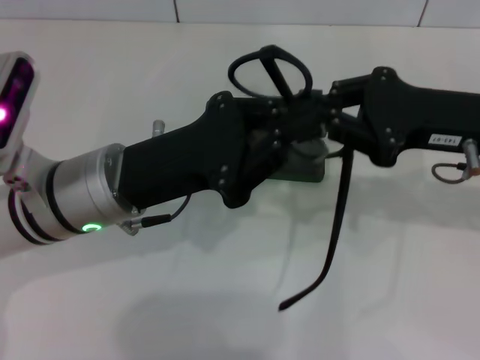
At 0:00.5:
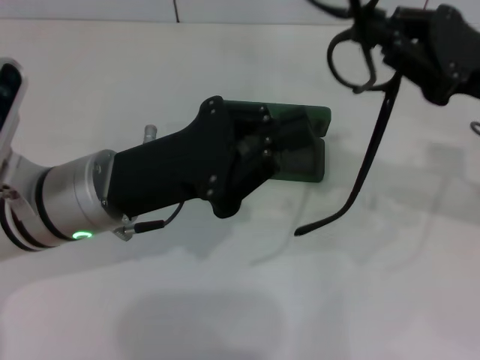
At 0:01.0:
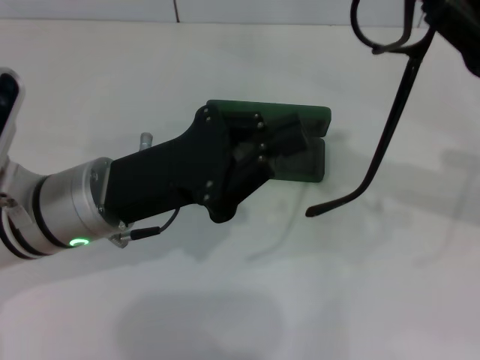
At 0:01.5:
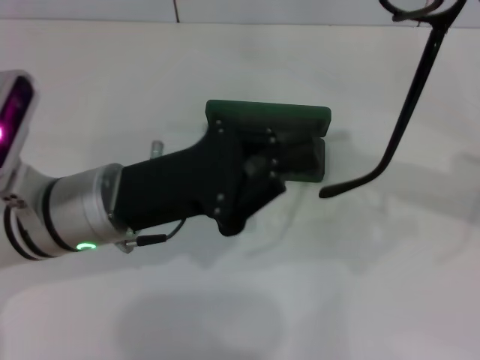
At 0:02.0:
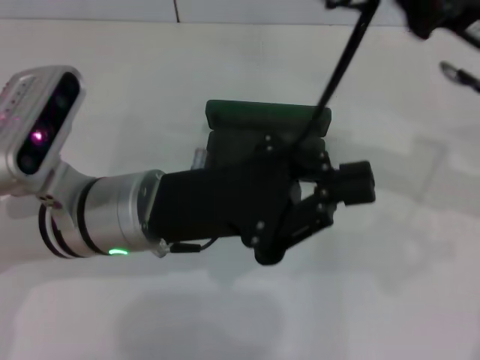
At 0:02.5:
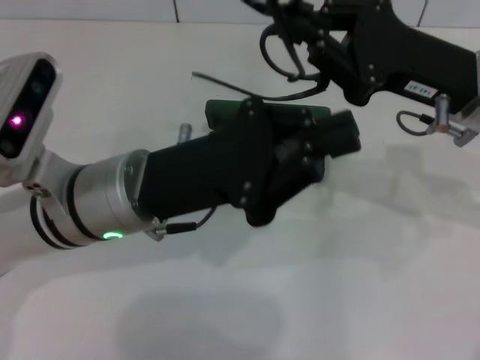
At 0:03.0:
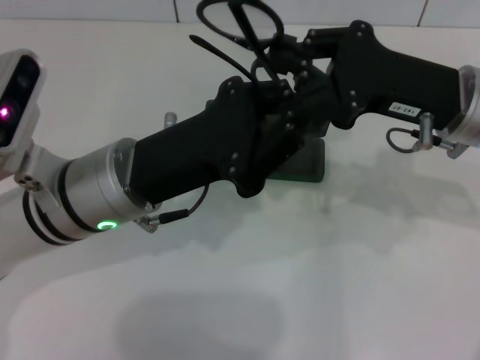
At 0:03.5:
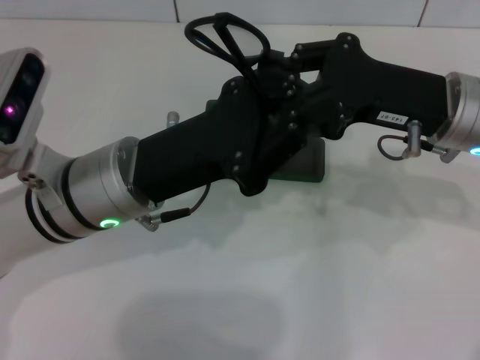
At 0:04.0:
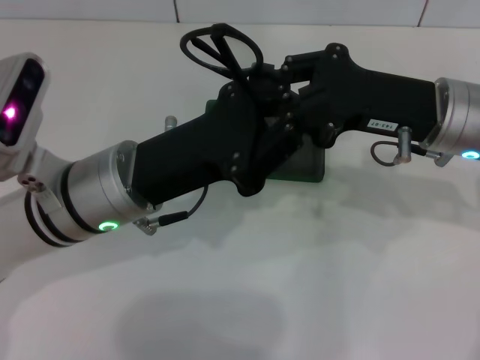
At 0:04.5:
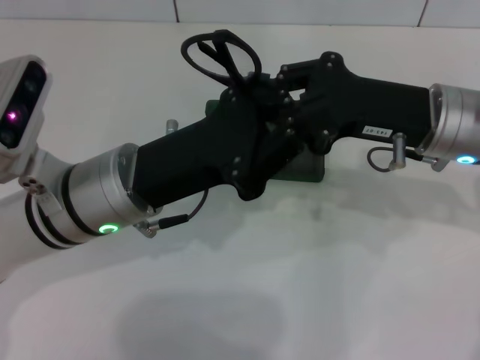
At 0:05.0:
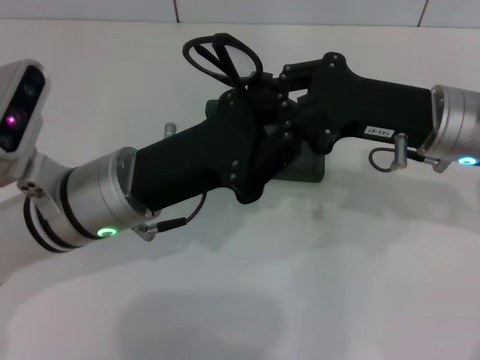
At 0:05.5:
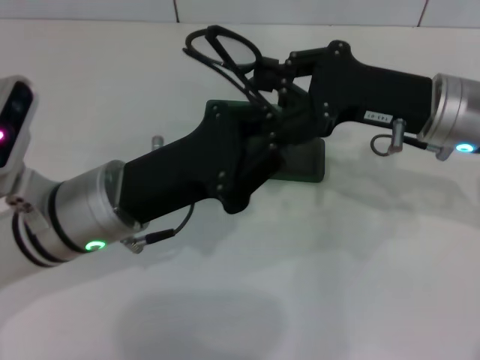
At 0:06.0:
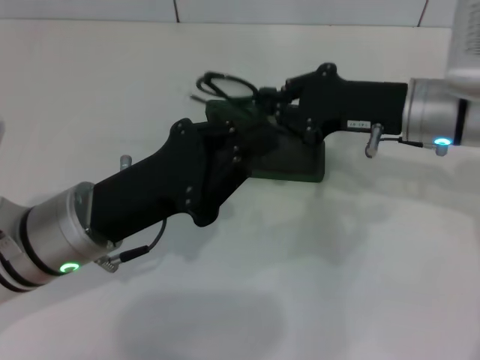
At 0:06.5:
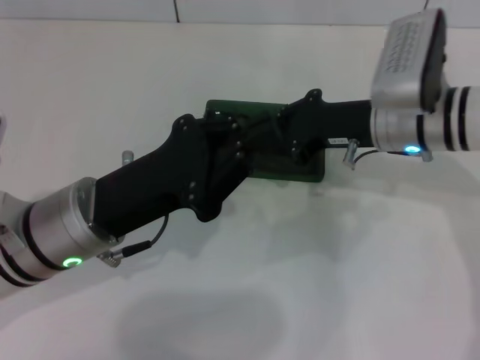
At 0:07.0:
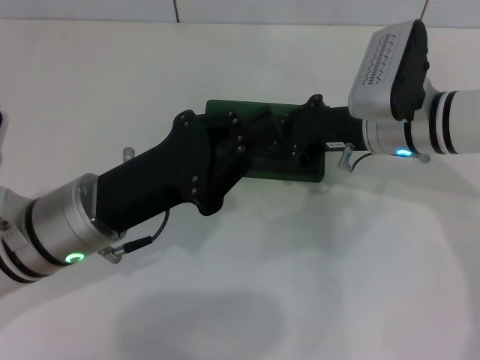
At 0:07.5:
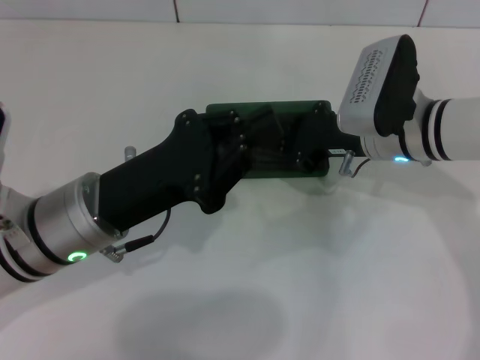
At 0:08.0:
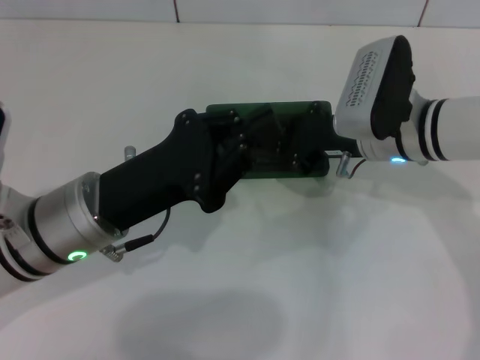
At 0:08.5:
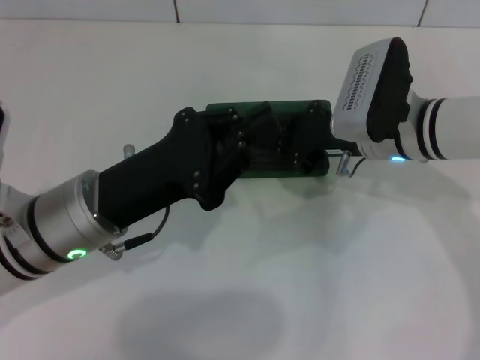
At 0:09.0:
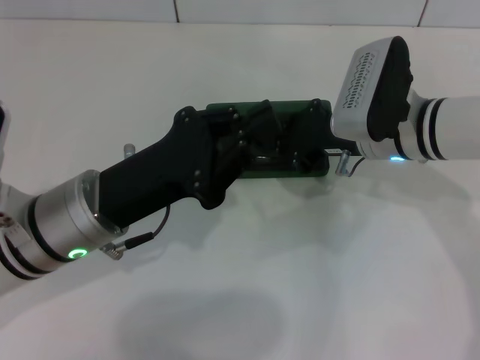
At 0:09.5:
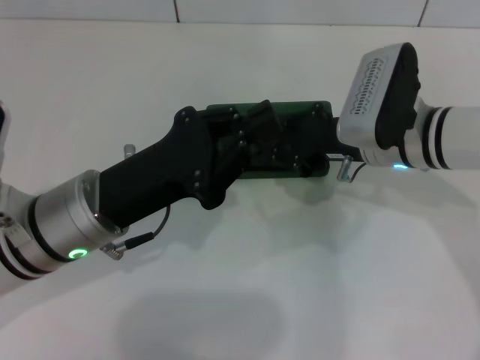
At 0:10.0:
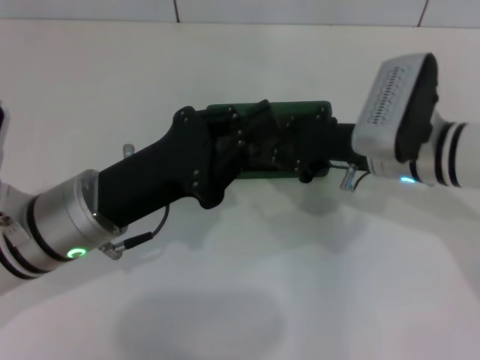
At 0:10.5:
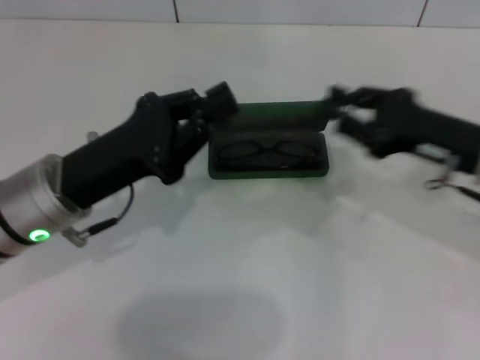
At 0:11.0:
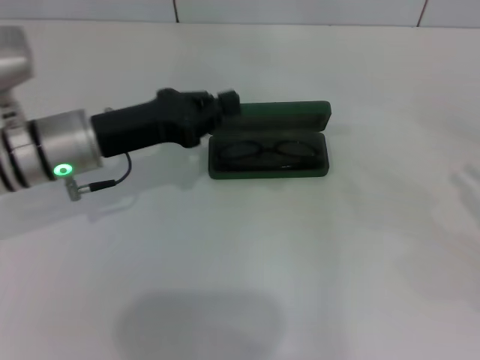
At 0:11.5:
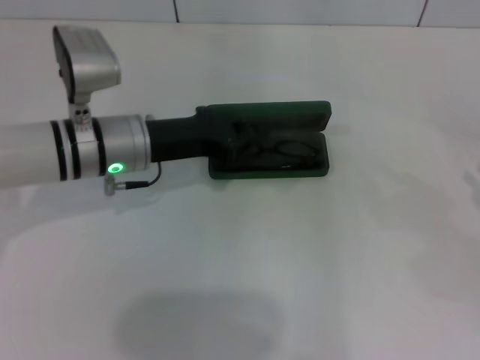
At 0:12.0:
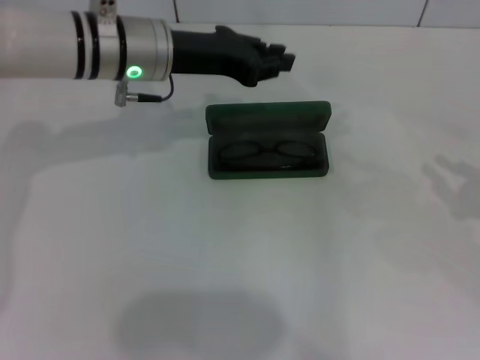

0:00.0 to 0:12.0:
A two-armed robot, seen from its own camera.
Step, 0:00.0 to 0:05.0: Lift the glasses with your right hand.
Step, 0:05.5 to 0:09.5: Put the glasses into the case with your right hand.
0:02.0 to 0:04.0: The right gripper shifts by about 5 cm.
0:06.0 to 0:08.0: The right gripper ends up approximately 5 cm from where it was.
0:08.0 to 0:10.0: There are only small adjustments of the grippers.
0:10.0 to 0:12.0: The left gripper moves forward, about 15 cm. Meanwhile the right gripper heads to the right and backward, covering some 25 cm.

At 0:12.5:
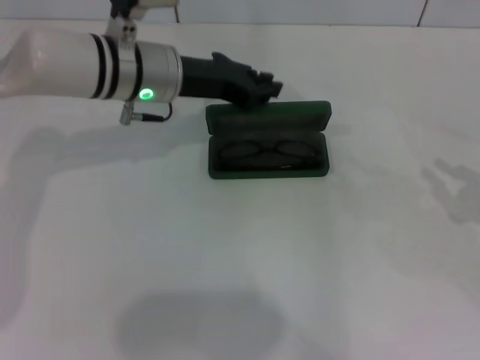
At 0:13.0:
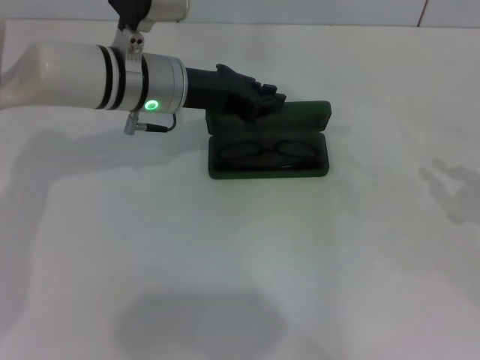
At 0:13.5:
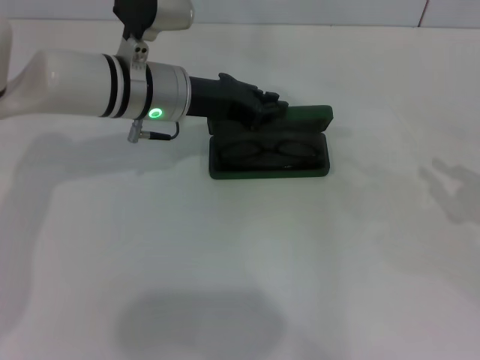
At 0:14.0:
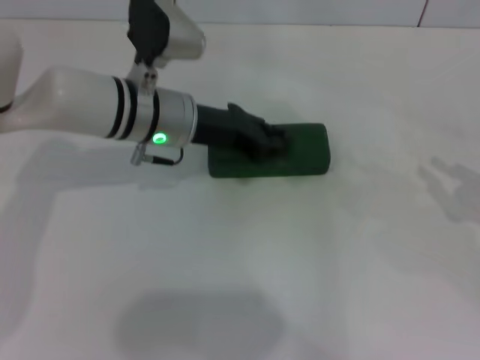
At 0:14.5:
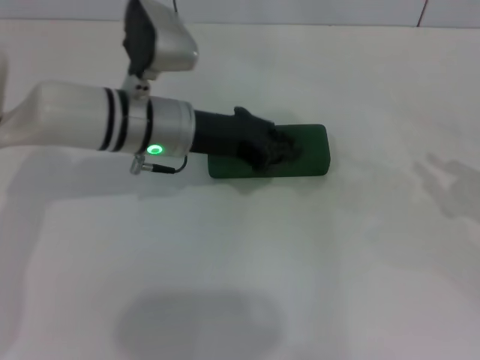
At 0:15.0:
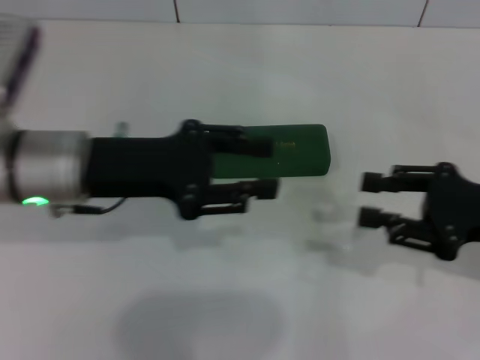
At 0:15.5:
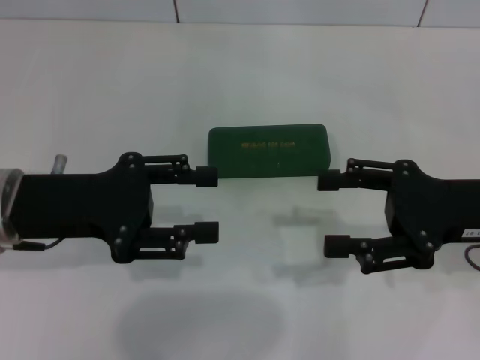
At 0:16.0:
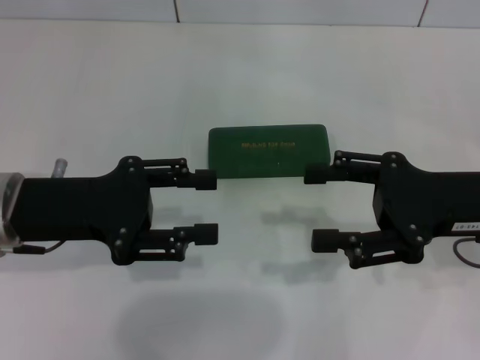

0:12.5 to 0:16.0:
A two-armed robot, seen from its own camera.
0:12.5 to 0:14.5: The grippers move only a little.
0:14.5 to 0:16.0: The right gripper travels to the left by some 15 cm, and opens, while the left gripper heads to the left and backward, covering roughly 15 cm, and opens its fingers.

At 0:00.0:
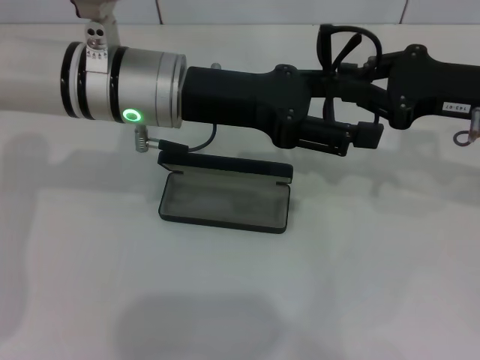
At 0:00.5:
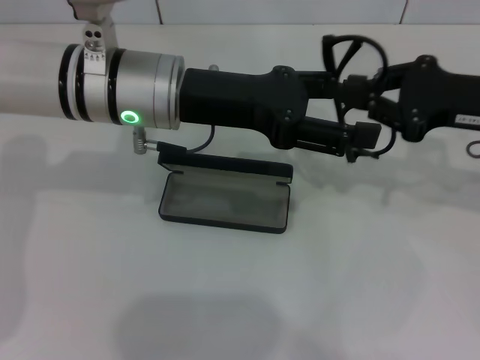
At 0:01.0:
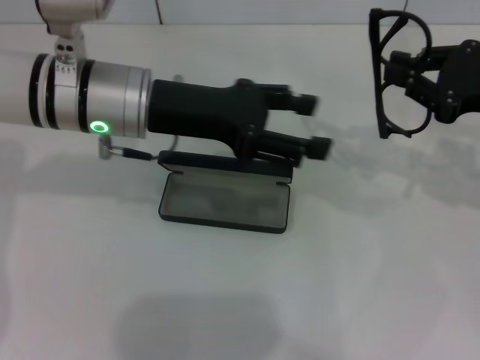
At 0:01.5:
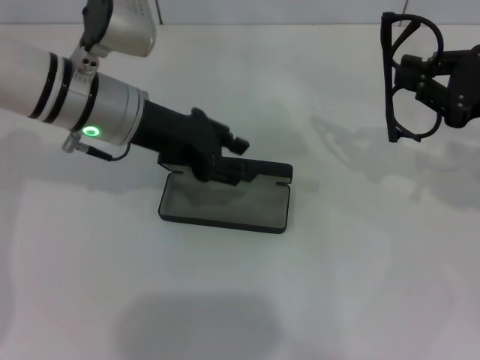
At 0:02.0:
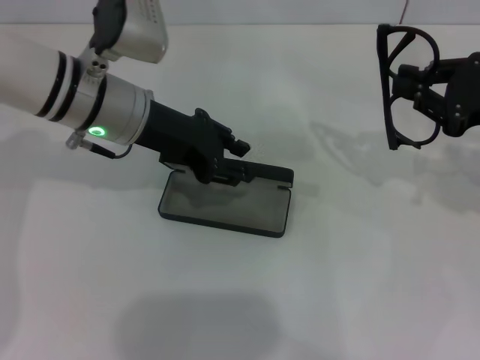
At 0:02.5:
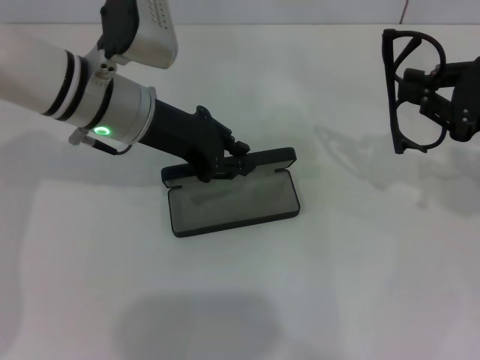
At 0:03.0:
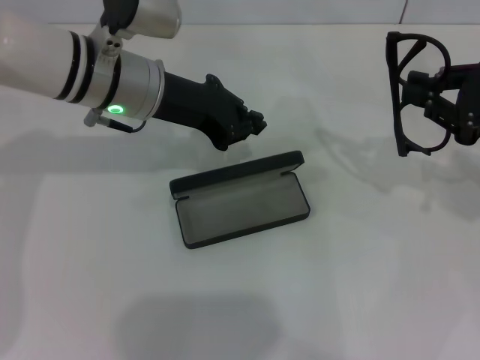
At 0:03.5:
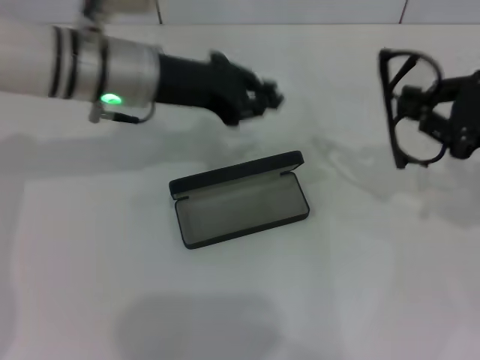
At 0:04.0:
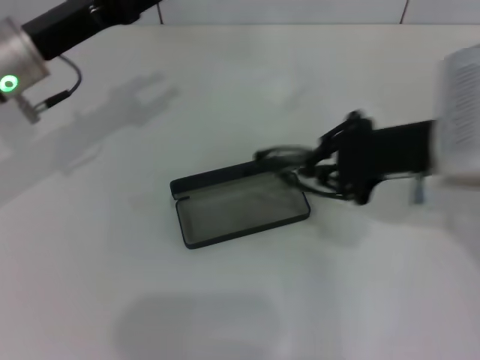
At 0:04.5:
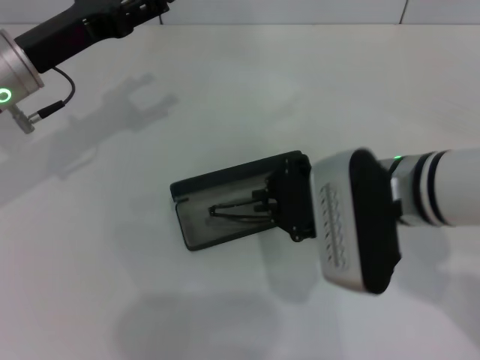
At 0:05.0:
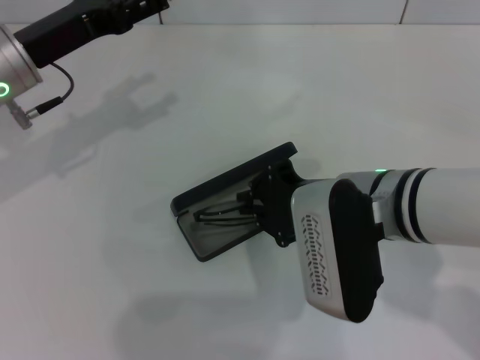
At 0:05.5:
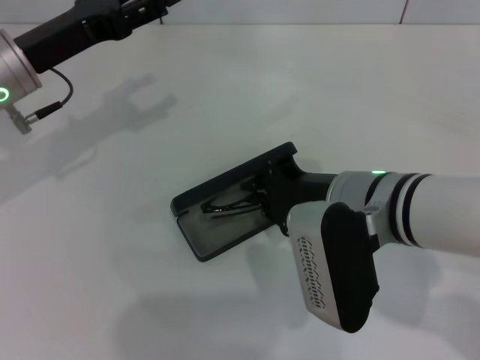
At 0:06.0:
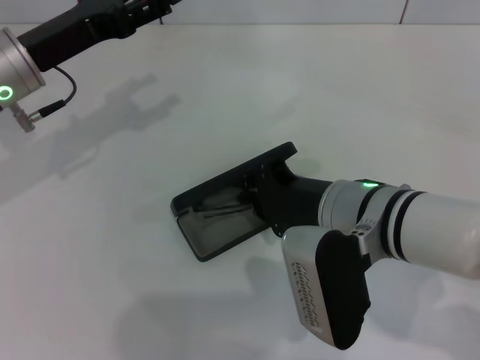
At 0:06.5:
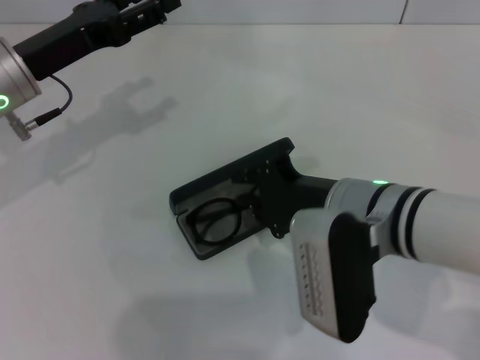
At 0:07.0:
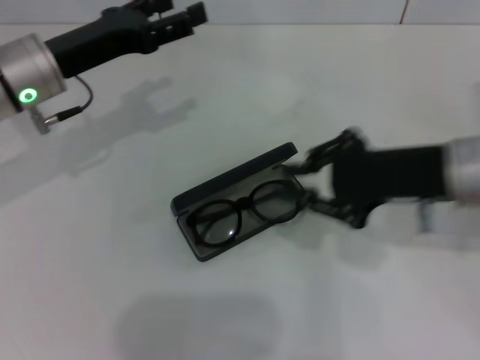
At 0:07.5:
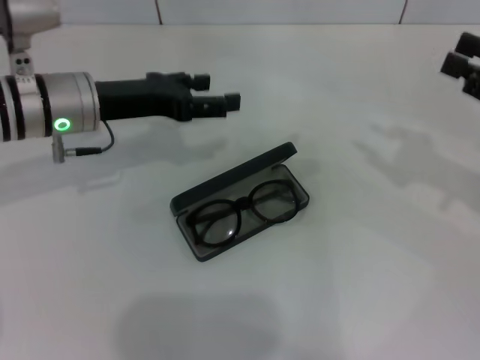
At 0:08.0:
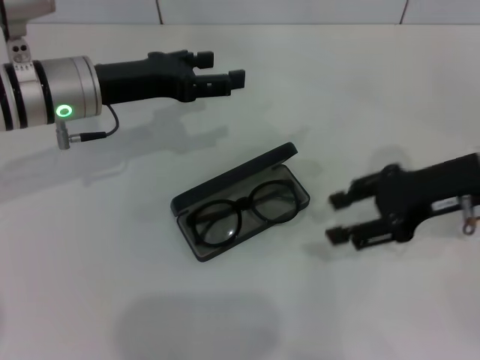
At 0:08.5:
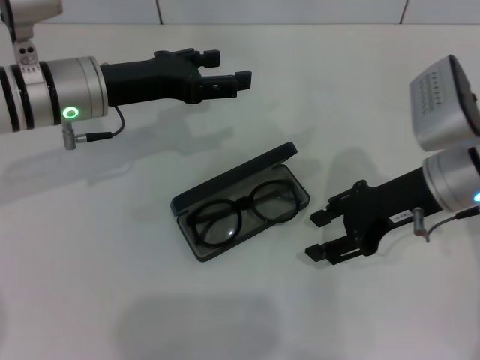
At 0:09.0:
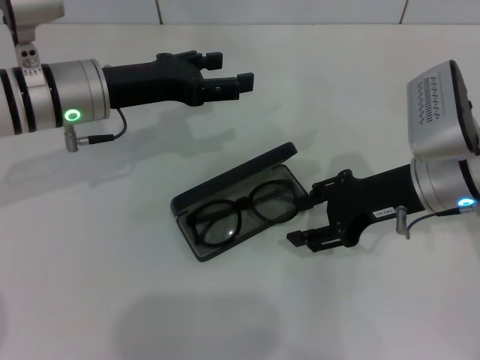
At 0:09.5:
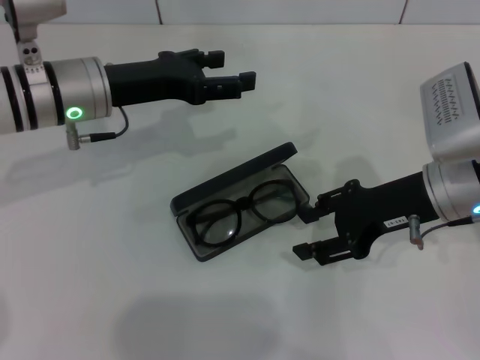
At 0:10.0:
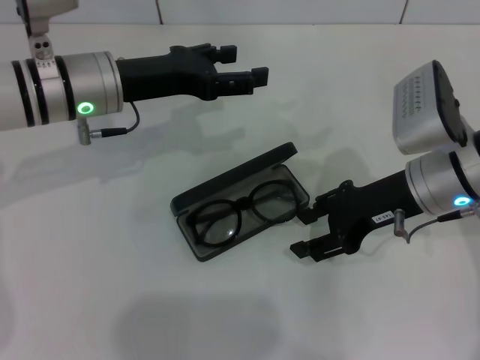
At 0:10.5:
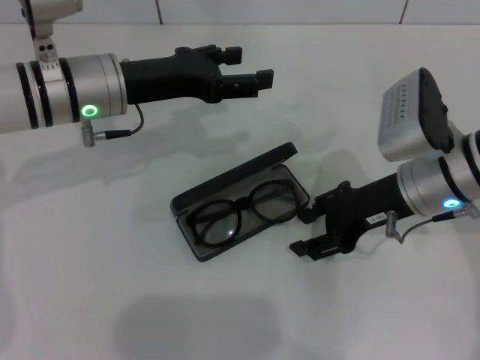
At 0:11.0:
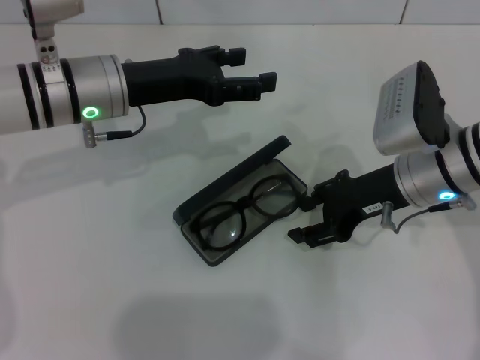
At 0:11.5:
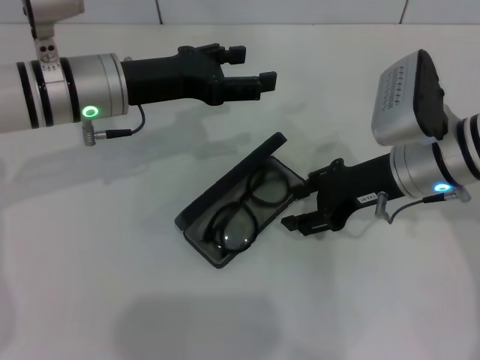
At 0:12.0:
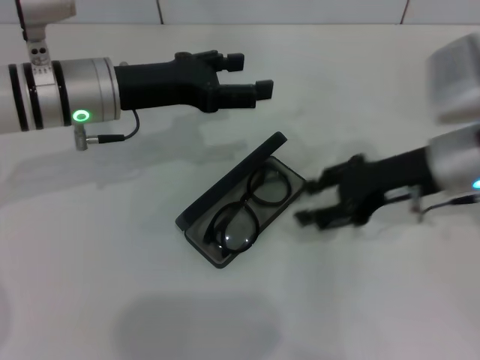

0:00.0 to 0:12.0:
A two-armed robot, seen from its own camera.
Step, 0:00.5 to 0:06.5: Put the glasses into the case with your right hand.
0:00.0 to 0:02.0: The left gripper closes up, while the right gripper changes place by some 5 cm.
0:02.0 to 0:04.0: Both grippers move to the left, some 10 cm.
0:04.0 to 0:06.0: The right gripper moves to the left, downward and backward, about 10 cm. Meanwhile the left gripper opens.
0:06.0 to 0:08.0: The right gripper shifts some 15 cm to the right and forward, and opens its fingers.
0:08.0 to 0:10.0: The right gripper travels to the left by approximately 5 cm.
